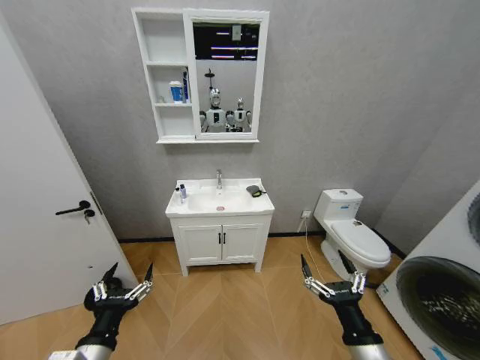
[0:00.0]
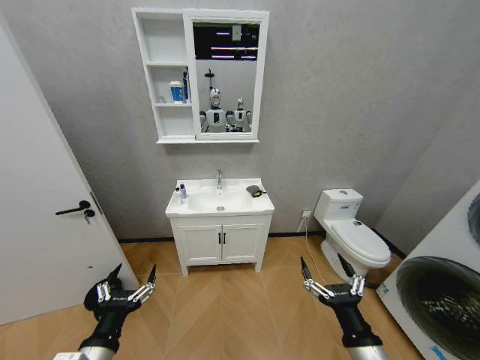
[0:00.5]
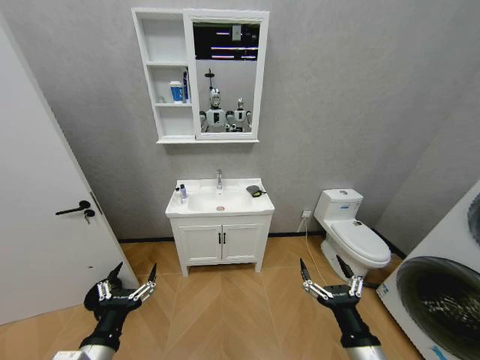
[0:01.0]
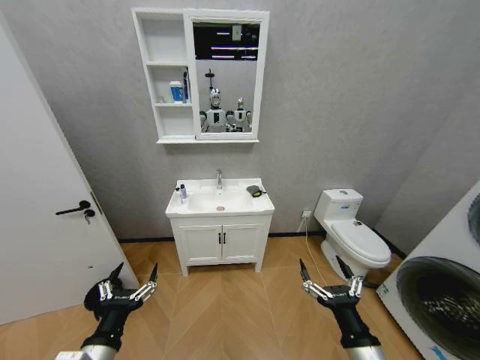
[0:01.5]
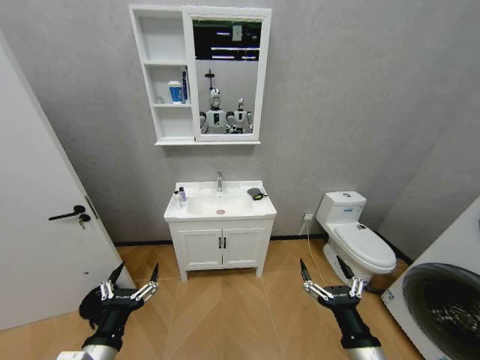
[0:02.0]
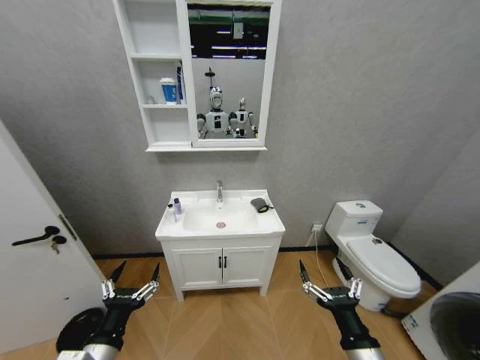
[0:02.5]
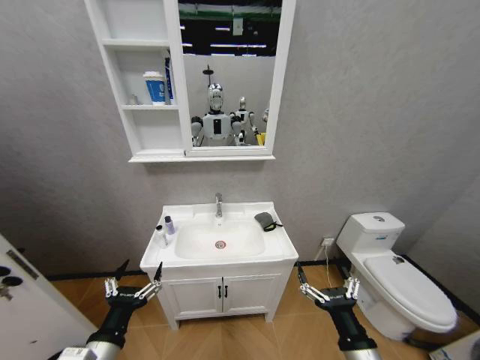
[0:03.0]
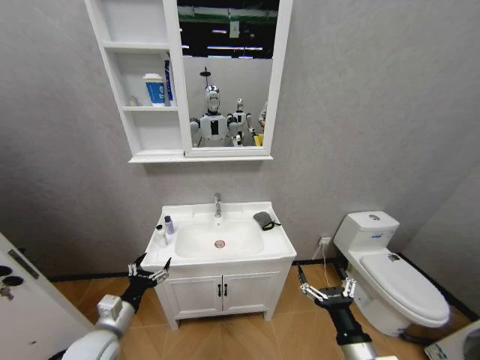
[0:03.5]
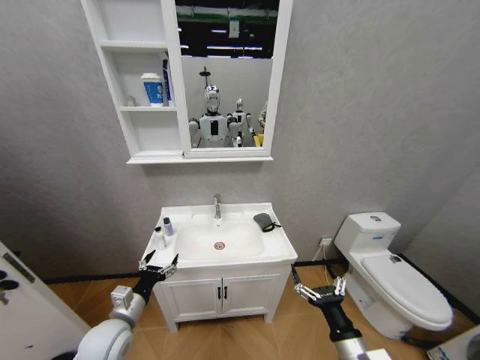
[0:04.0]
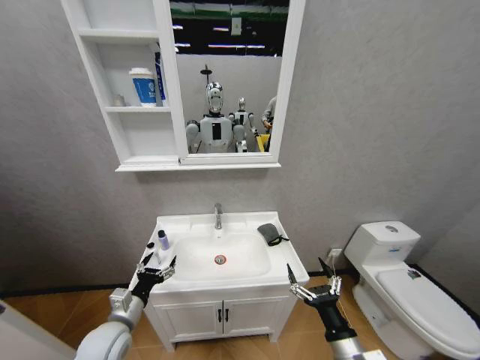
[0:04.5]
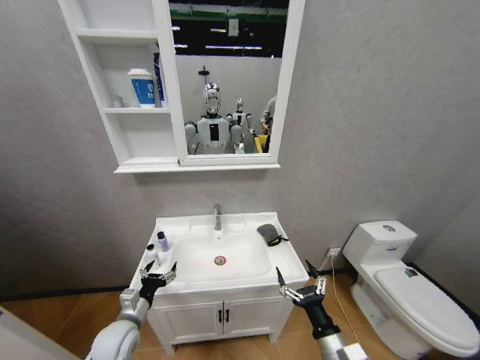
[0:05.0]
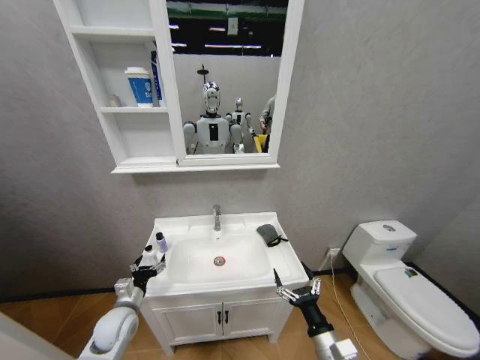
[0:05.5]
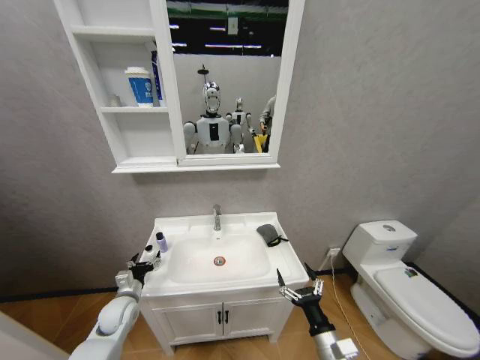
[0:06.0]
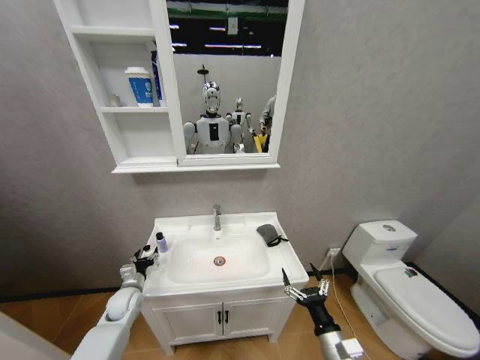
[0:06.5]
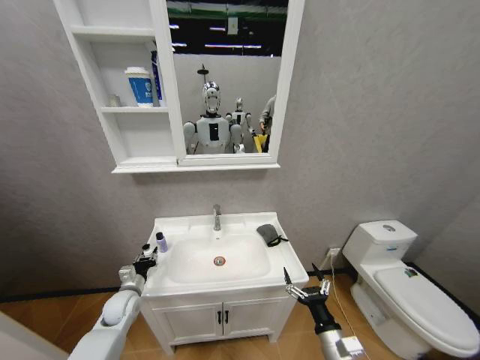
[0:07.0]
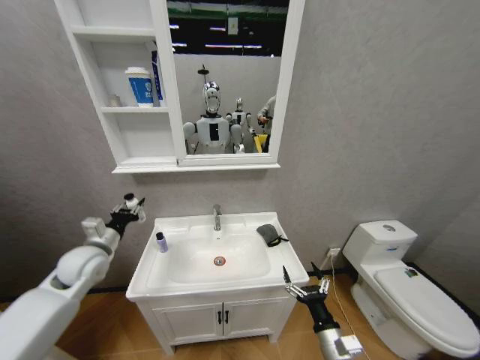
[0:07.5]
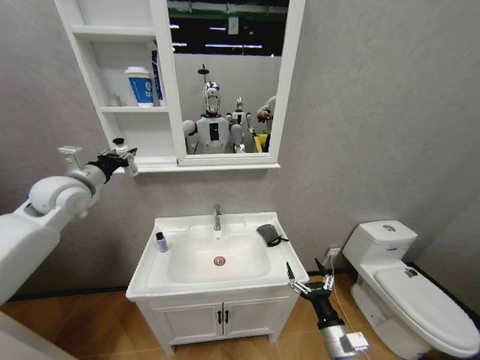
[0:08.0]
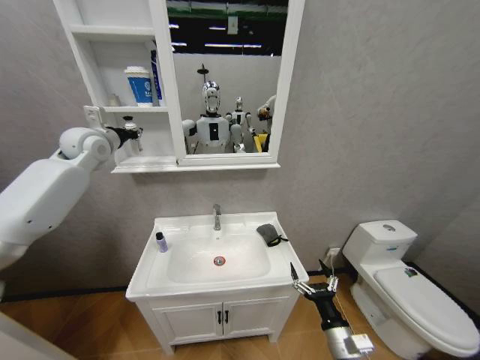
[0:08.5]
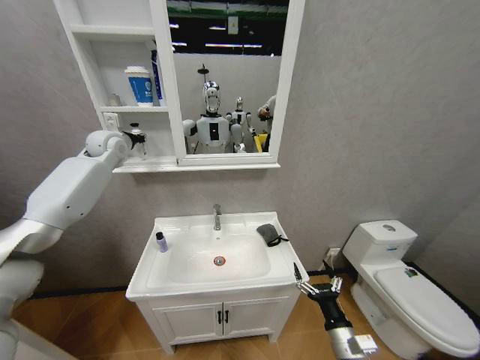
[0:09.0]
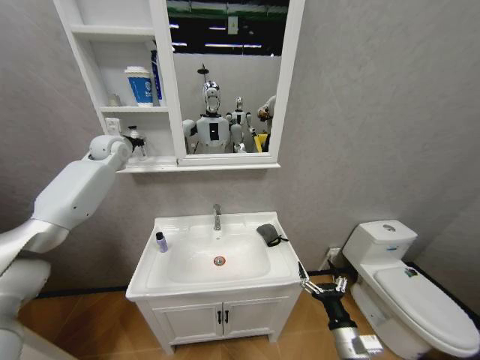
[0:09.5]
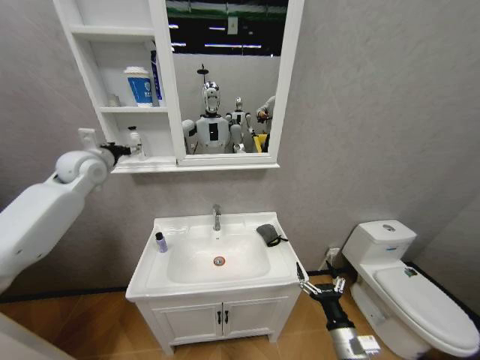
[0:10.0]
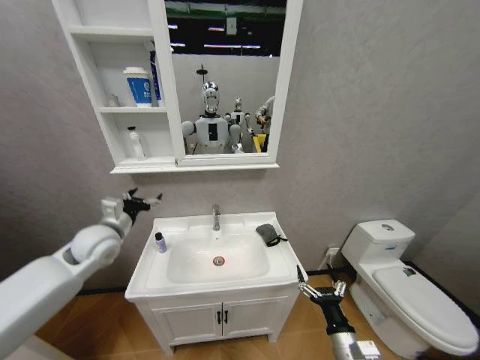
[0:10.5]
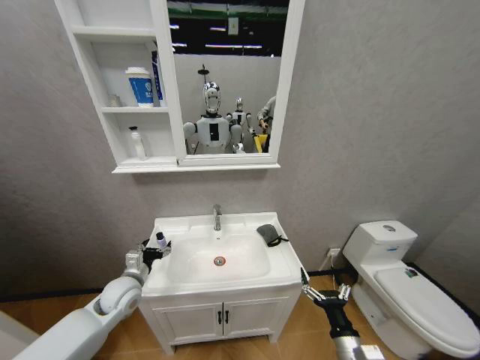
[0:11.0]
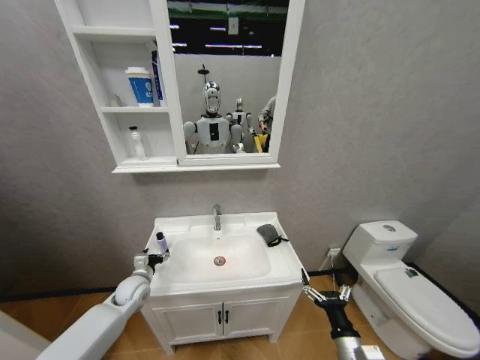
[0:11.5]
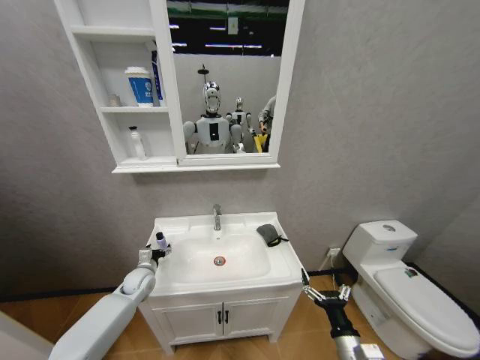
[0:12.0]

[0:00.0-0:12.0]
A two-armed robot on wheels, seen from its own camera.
Task of the whole recording: Move facial cleanser and shampoo from washbasin to cabinet, then wipe washbasin with towel.
0:02.0 to 0:04.0: The right gripper shifts by approximately 5 cm; the left gripper travels forward and downward by approximately 15 cm.
0:04.0 to 0:06.0: The left gripper heads forward and downward, covering roughly 10 cm; the right gripper moves downward, roughly 5 cm.
0:06.0 to 0:08.0: The left gripper is displaced upward by some 35 cm, and closes.
0:08.0 to 0:10.0: The left gripper is displaced forward by approximately 10 cm, and opens.
0:10.0 to 0:12.0: The left gripper moves downward, approximately 40 cm.

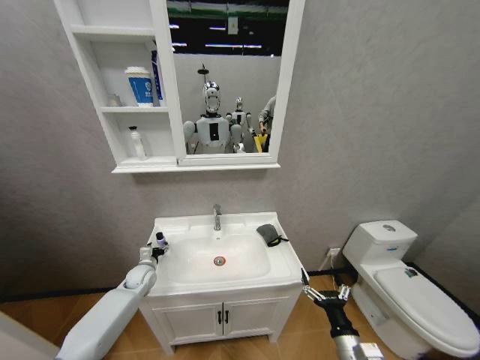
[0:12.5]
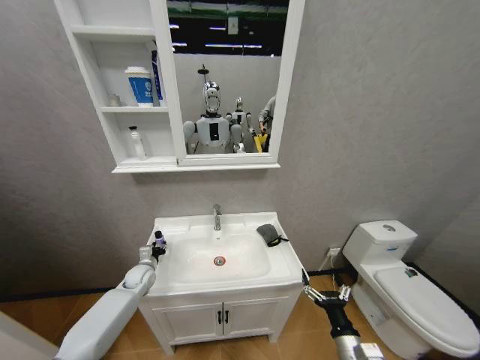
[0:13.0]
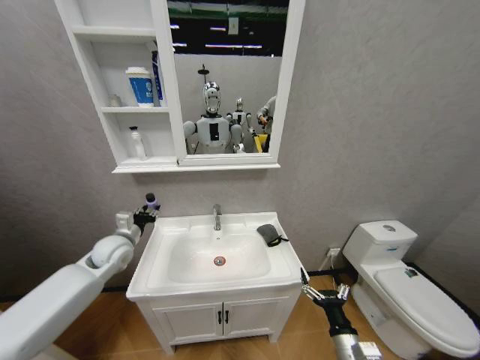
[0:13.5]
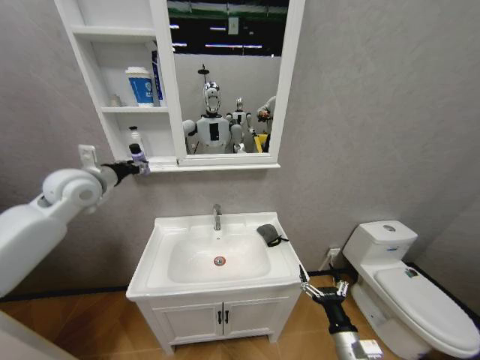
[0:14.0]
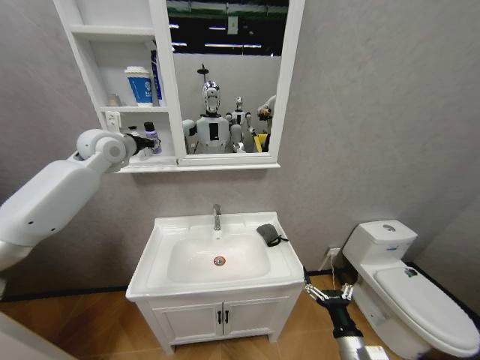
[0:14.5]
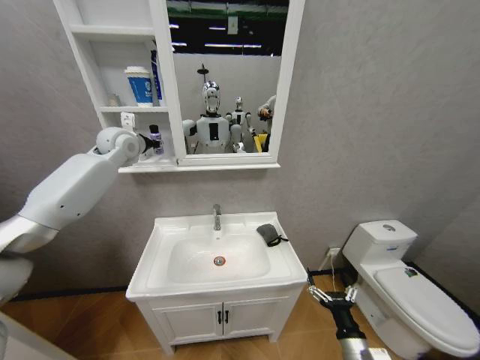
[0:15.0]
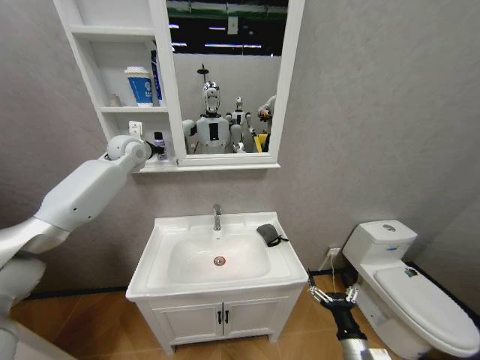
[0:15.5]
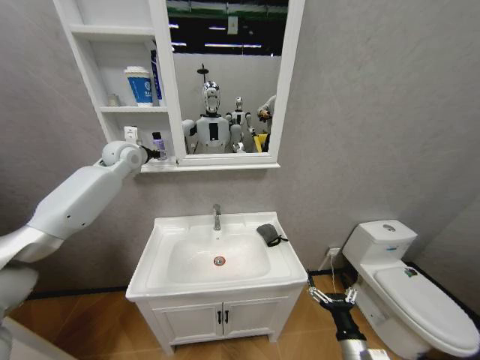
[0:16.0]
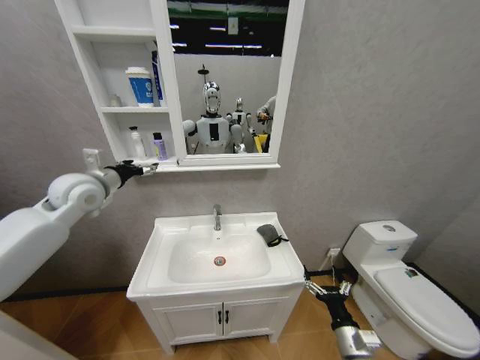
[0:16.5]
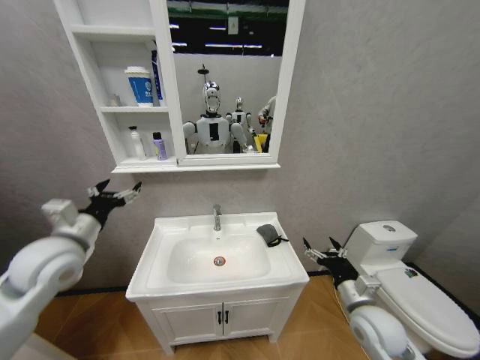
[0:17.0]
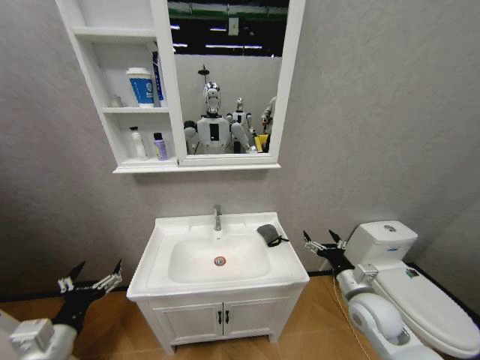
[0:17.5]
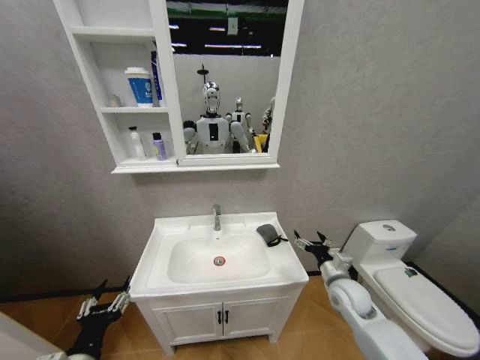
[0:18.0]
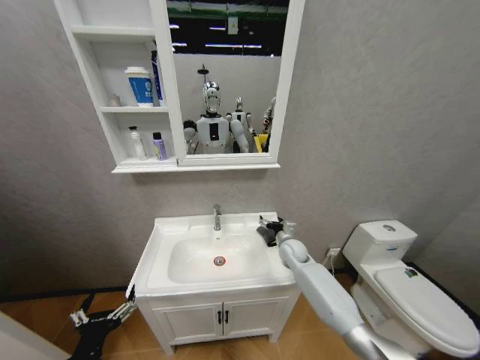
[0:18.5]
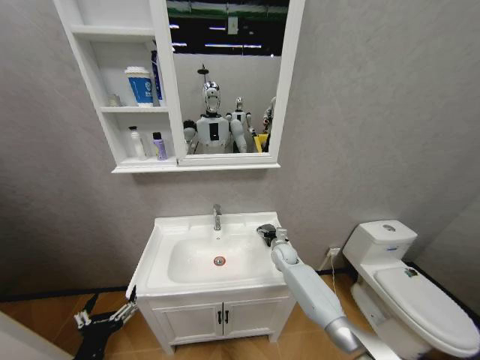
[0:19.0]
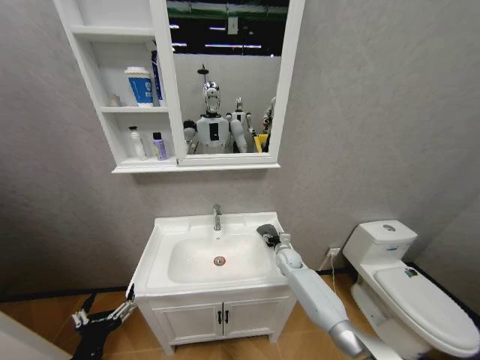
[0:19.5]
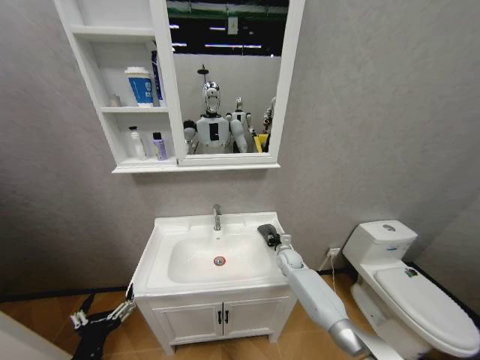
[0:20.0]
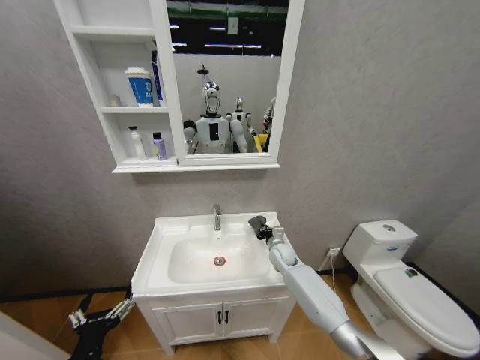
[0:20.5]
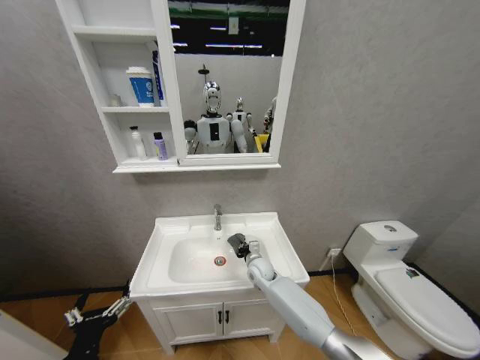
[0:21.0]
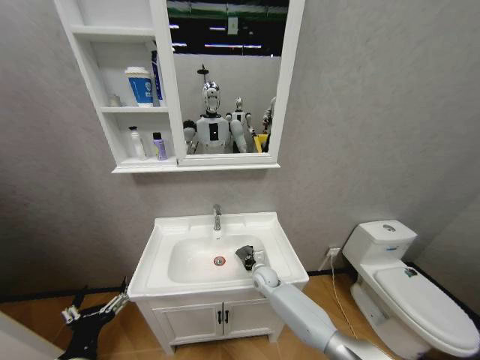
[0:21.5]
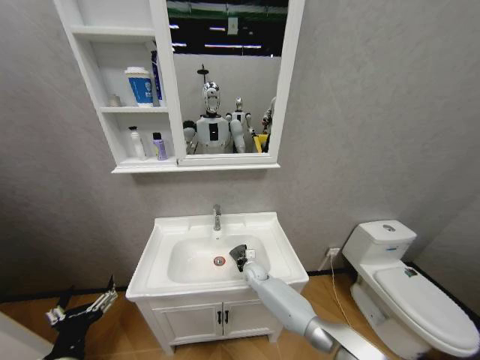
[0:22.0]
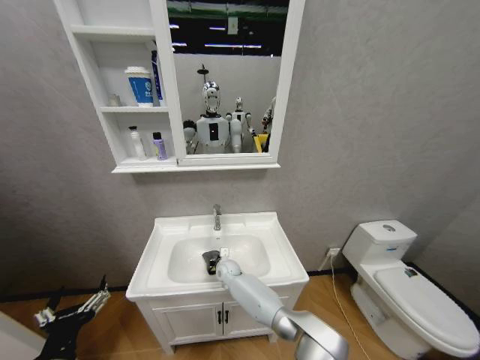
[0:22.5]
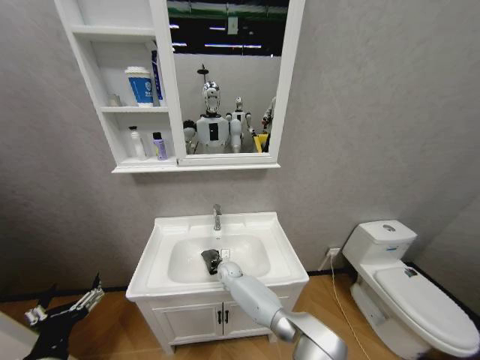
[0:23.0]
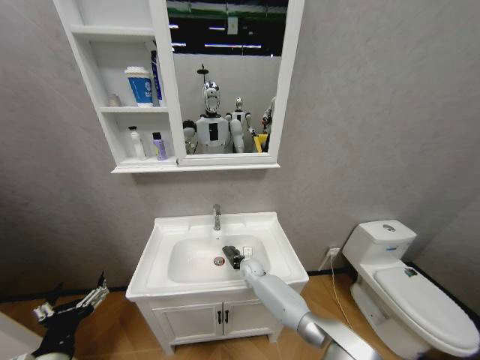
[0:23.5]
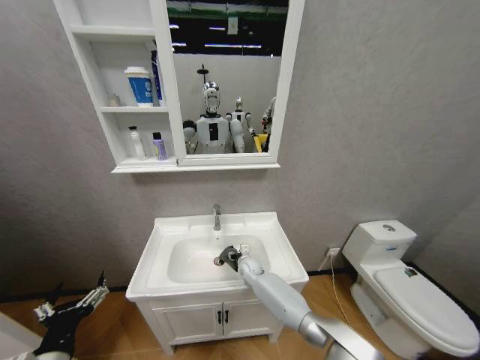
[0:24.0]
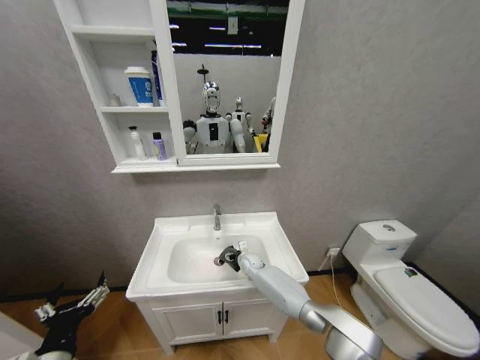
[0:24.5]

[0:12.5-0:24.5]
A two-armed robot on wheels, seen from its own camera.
Task of the whole recording: Move facial cleanser and shampoo from washbasin to cabinet, then wipe washbasin with towel.
0:12.5 to 0:14.5: The left gripper shifts some 50 cm upward, and closes.
0:14.5 to 0:16.5: The left gripper shifts about 10 cm backward and downward, and opens up.
0:16.5 to 0:18.5: The right gripper shifts some 30 cm forward, while the left gripper heads backward and downward, covering approximately 40 cm, and closes and opens again.
0:18.5 to 0:20.5: The right gripper moves roughly 10 cm downward and comes back, and closes.
0:20.5 to 0:22.5: The right gripper travels to the left and downward by roughly 20 cm.
0:22.5 to 0:24.5: The right gripper heads to the right, covering some 10 cm, and opens up.

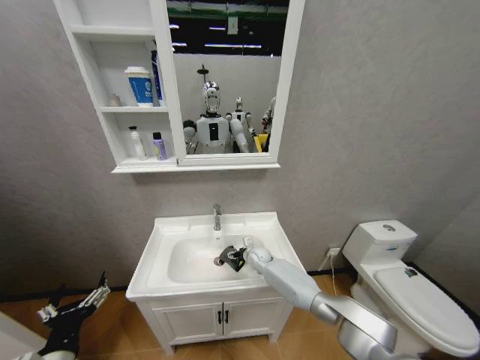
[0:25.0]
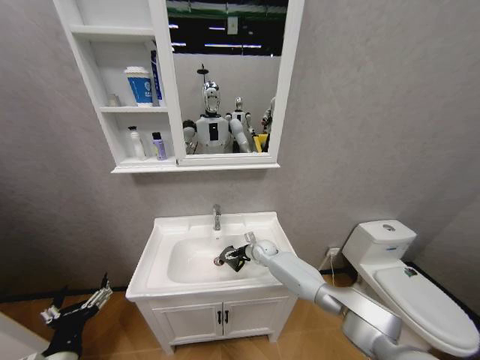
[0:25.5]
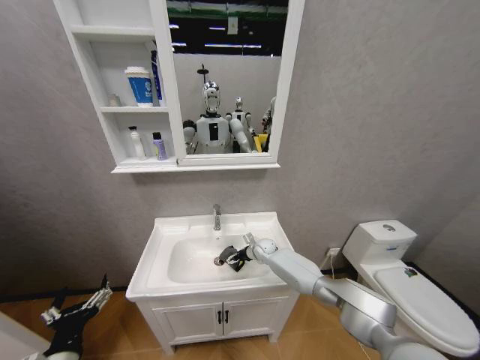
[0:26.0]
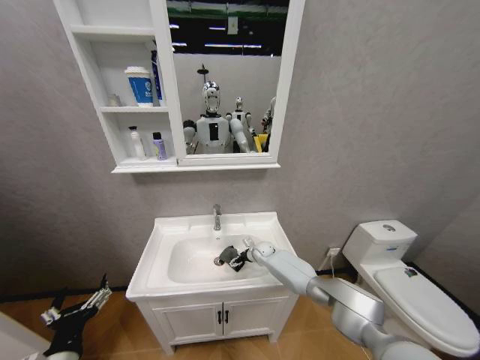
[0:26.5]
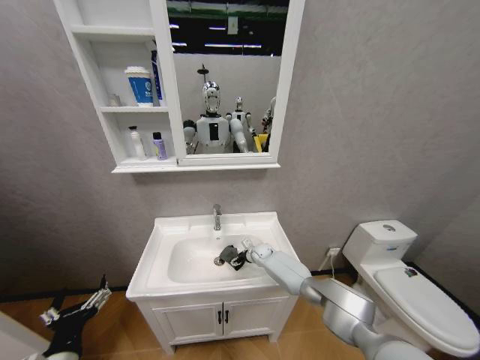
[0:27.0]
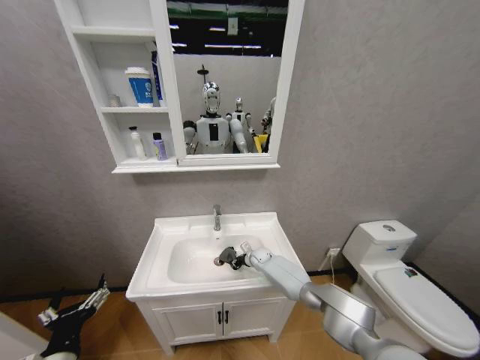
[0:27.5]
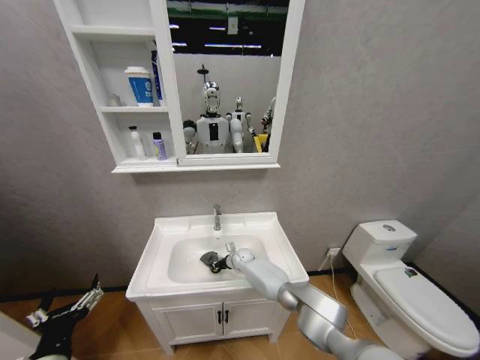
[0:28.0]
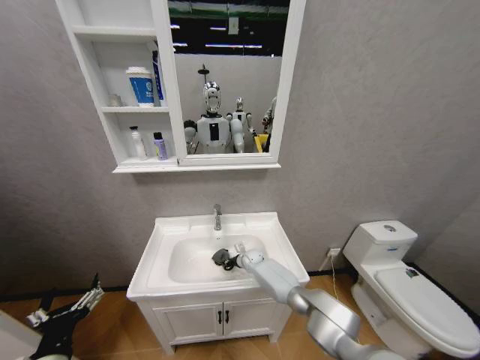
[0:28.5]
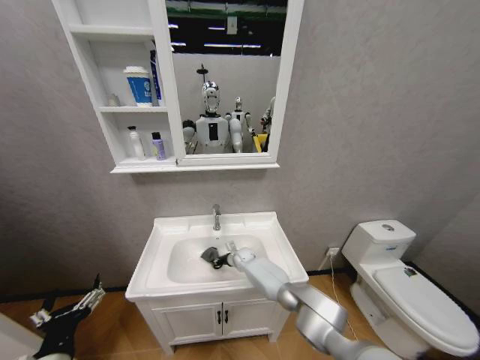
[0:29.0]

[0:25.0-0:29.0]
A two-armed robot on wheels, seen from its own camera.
Task of the whole recording: Move facial cleanser and shampoo from washbasin to cabinet, then wipe washbasin with towel.
0:25.0 to 0:27.0: The right gripper changes place by roughly 5 cm.
0:27.0 to 0:29.0: The right gripper swings left and right, approximately 10 cm each way, with 2 reversals, and closes its fingers.
